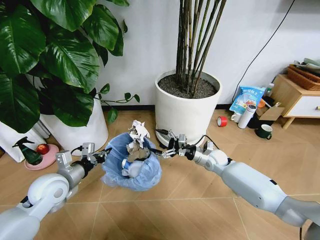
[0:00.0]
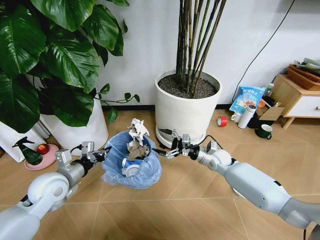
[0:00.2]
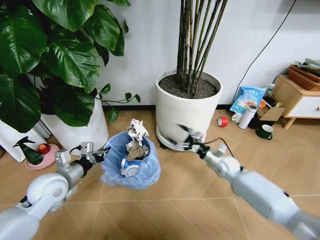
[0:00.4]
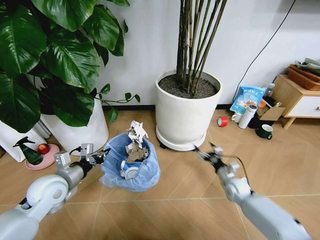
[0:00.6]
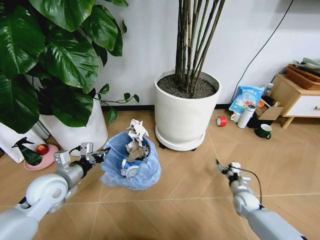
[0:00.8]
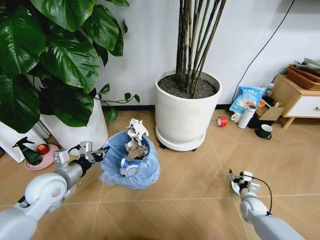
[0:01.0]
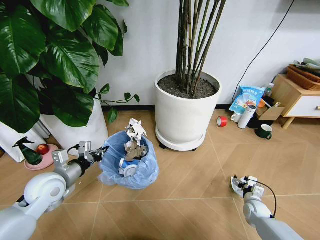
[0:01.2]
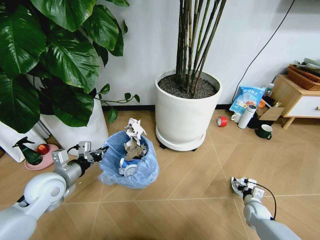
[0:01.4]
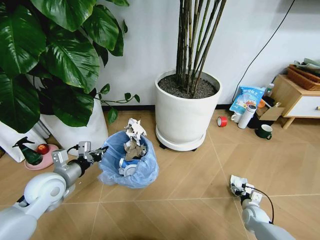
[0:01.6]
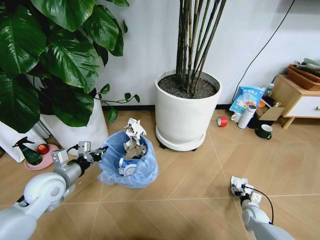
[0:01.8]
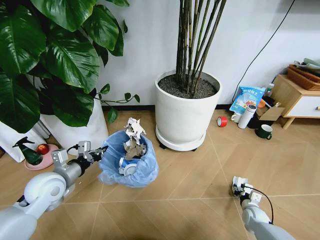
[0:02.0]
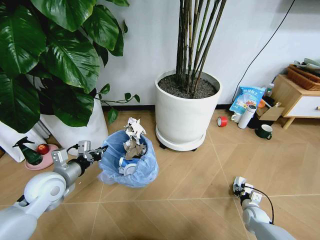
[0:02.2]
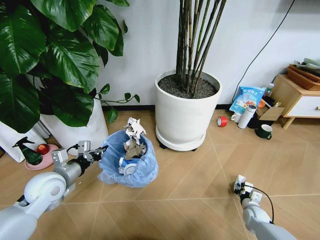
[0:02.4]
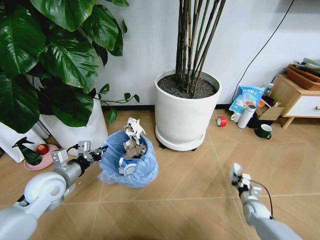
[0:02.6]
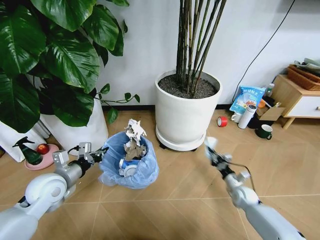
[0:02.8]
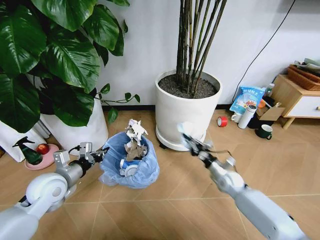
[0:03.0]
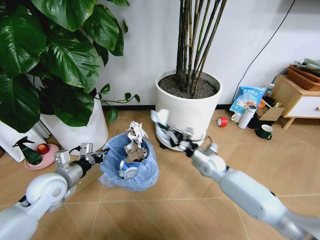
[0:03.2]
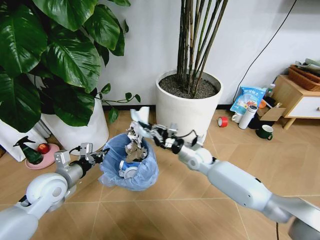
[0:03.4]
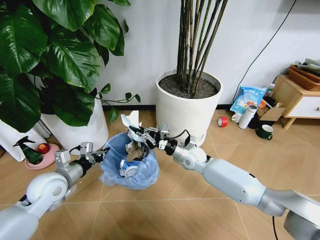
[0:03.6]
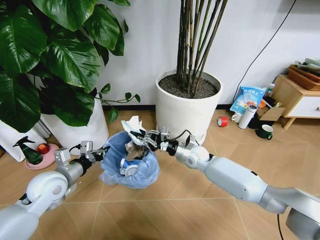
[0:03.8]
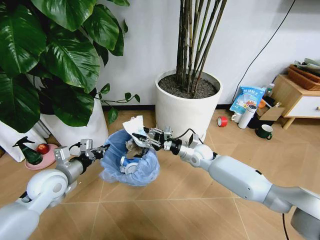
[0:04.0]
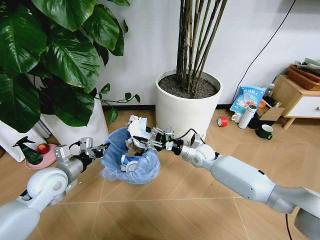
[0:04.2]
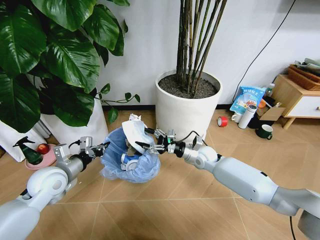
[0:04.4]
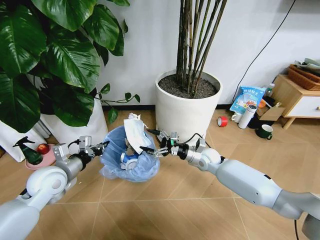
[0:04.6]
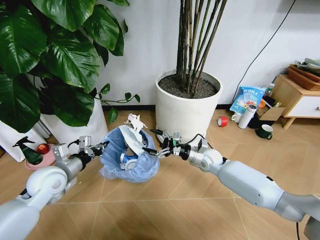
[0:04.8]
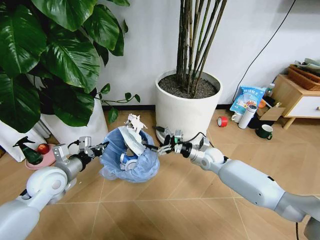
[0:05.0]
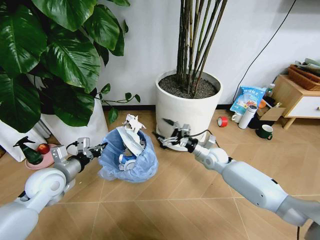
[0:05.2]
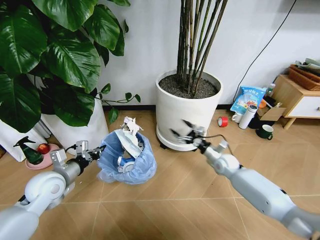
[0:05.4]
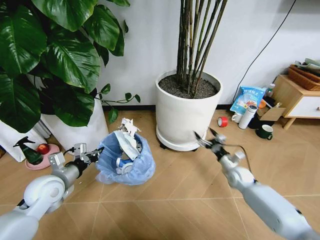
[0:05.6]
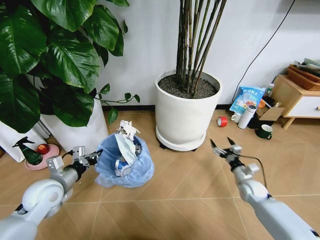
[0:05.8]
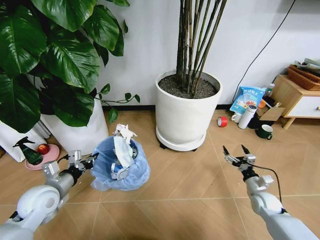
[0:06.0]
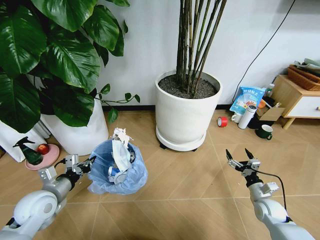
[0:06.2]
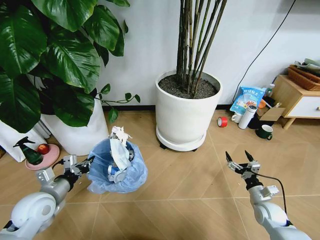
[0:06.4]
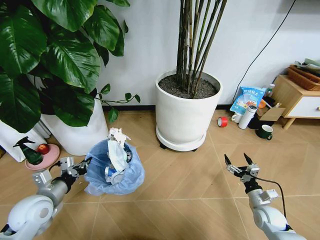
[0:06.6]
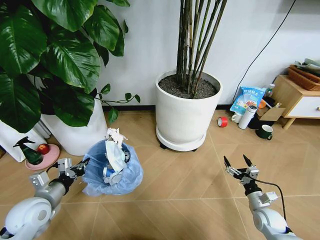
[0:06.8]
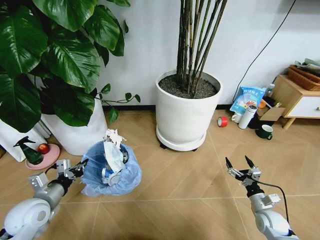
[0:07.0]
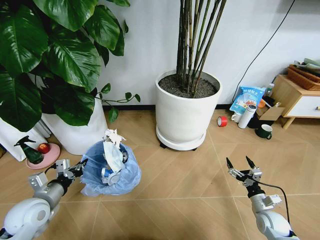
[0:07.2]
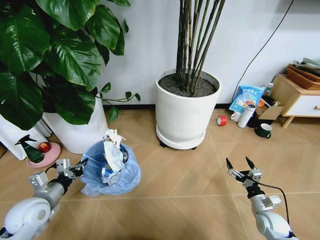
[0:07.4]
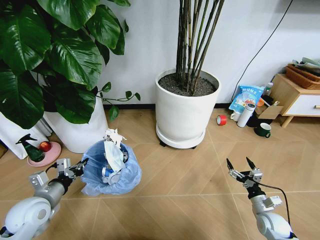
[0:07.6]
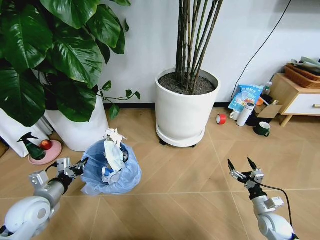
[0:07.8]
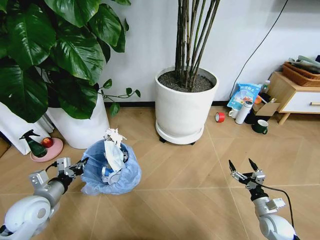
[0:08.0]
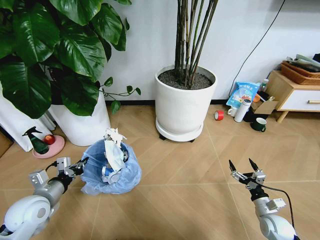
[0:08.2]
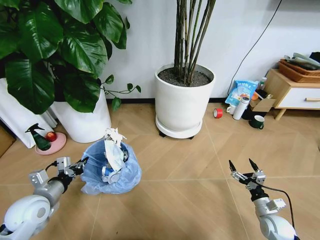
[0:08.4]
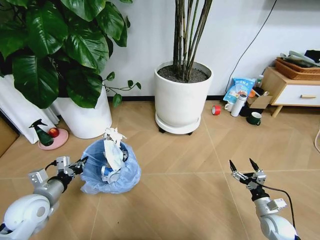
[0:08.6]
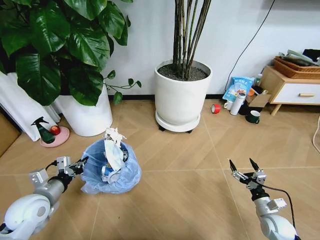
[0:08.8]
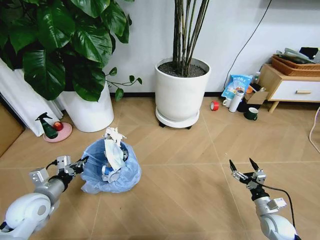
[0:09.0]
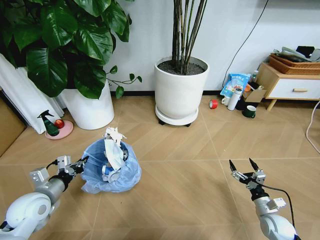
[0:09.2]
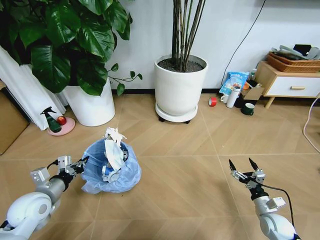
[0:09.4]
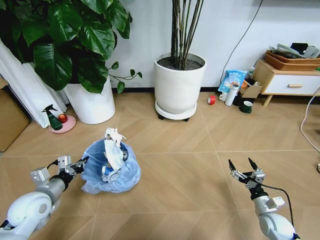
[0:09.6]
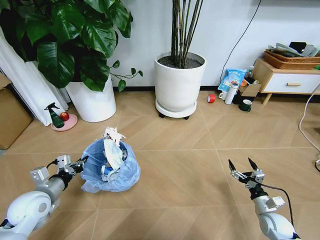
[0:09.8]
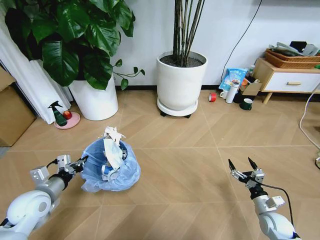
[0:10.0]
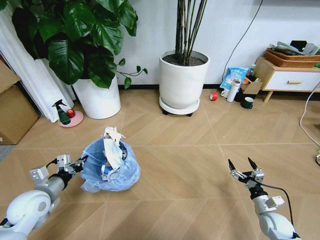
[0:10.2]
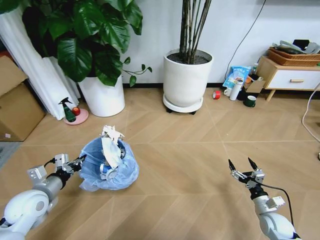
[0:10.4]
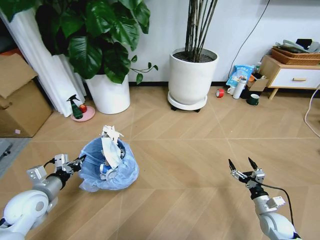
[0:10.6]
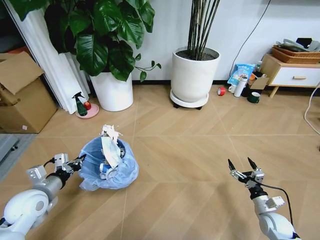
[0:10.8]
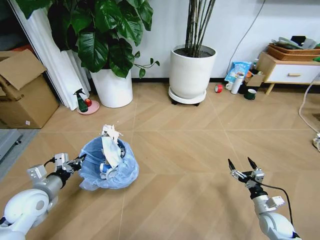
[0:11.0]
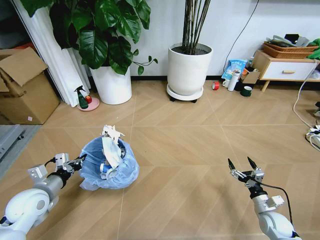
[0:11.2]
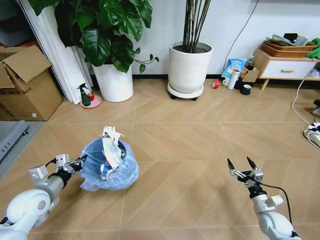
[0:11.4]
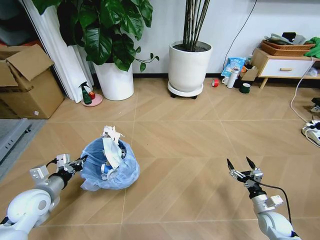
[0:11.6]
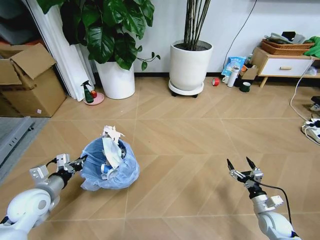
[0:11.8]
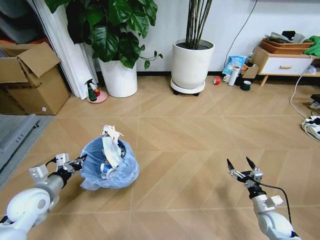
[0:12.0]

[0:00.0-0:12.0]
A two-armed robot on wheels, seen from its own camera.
Task of the whole recording: Pick up the trash bin and place the garbage on the floor into it.
0:00.0 to 0:01.6: The right gripper travels downward, to the right and backward by some 30 cm.
0:01.6 to 0:03.0: The right gripper is displaced upward, to the left and forward by approximately 20 cm, and closes its fingers.
0:03.0 to 0:04.4: The right gripper shifts some 15 cm to the left, upward and forward, and opens its fingers.
0:04.4 to 0:06.0: The right gripper moves to the right, backward and downward, some 30 cm, while the left gripper moves approximately 5 cm.
0:06.0 to 0:07.6: The right gripper is displaced backward by roughly 10 cm.

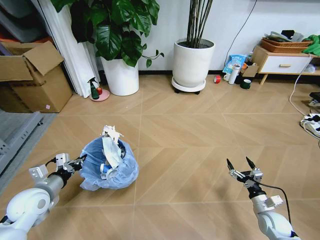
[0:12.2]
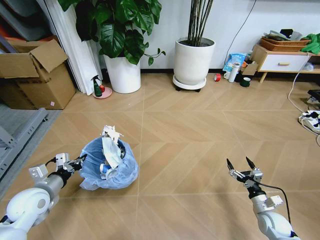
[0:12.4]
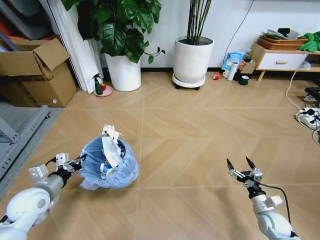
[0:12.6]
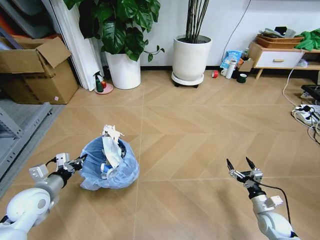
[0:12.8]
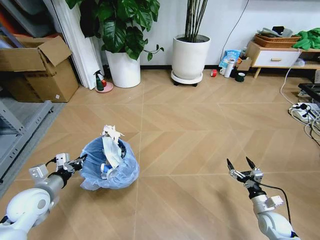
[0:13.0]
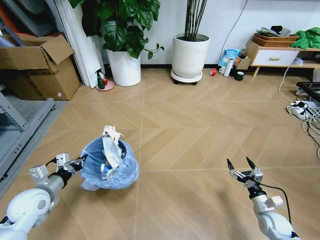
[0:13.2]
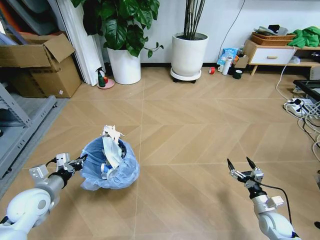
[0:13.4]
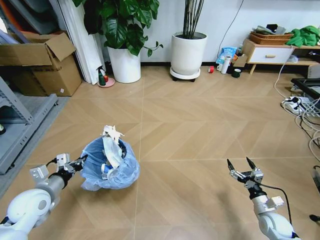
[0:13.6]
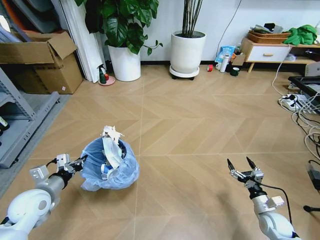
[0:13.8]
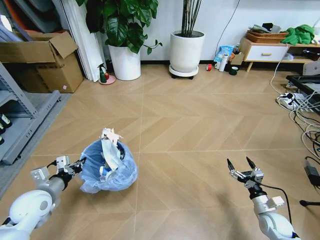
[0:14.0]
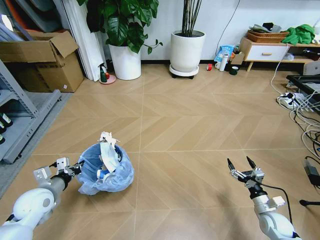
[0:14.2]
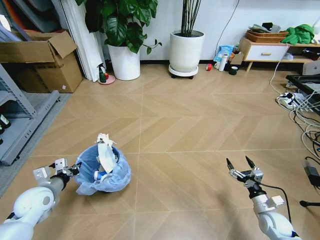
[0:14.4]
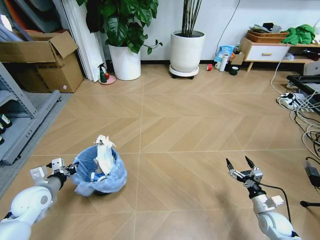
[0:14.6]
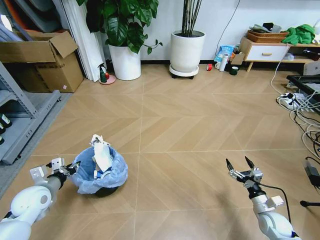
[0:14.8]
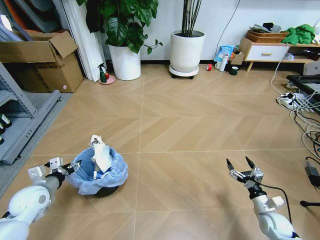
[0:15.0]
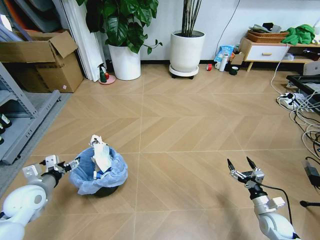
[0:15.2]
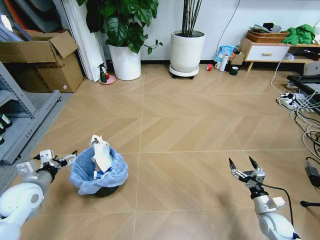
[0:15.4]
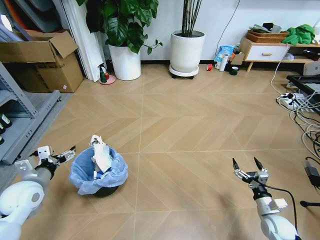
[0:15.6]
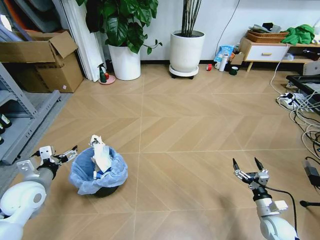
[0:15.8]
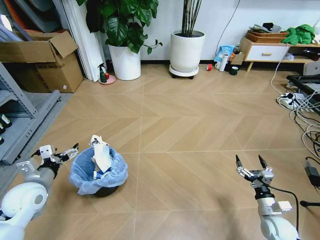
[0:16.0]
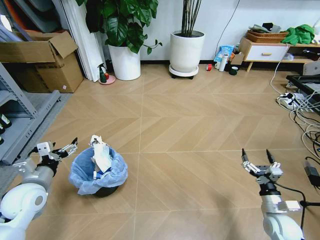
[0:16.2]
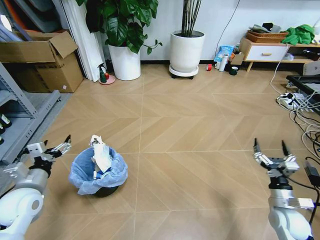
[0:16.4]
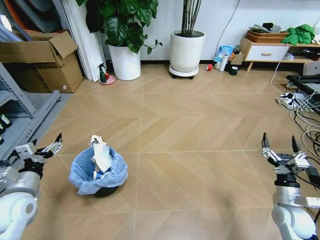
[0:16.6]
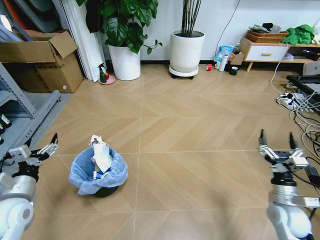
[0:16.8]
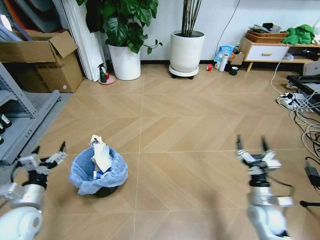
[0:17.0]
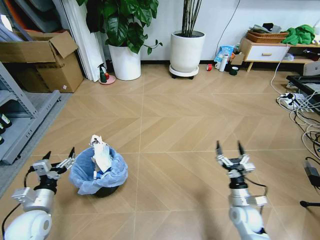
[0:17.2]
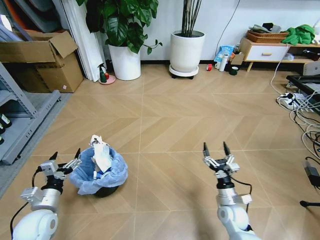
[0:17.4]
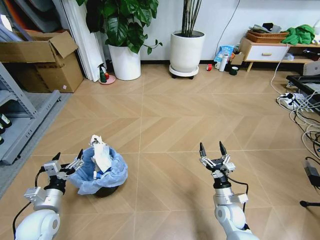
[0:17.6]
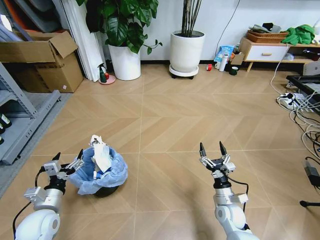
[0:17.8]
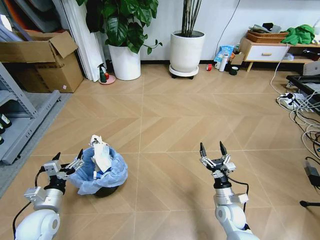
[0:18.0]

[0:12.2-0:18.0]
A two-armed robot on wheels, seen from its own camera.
Task of the whole recording: Pick up the trash bin and place the garbage on the floor into it.
0:13.6 to 0:15.0: The left gripper opens.
0:15.0 to 0:16.6: The right gripper goes about 10 cm upward, while the left gripper travels upward by roughly 5 cm, and opens its fingers.
0:16.6 to 0:18.0: The right gripper travels to the left and downward by approximately 20 cm, while the left gripper moves downward, some 10 cm.
